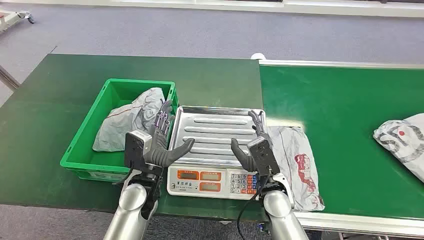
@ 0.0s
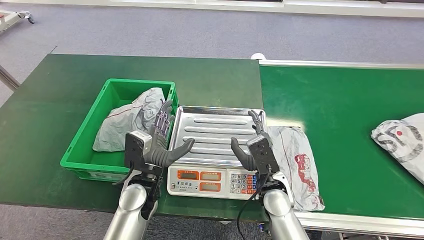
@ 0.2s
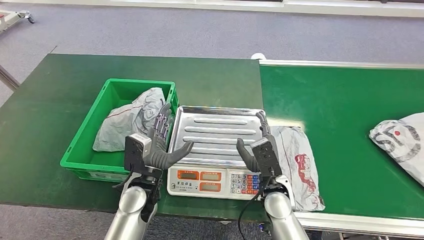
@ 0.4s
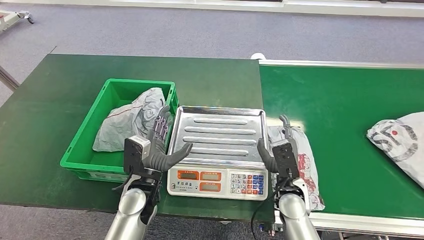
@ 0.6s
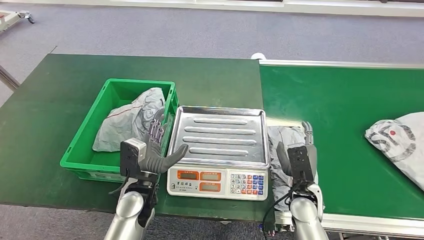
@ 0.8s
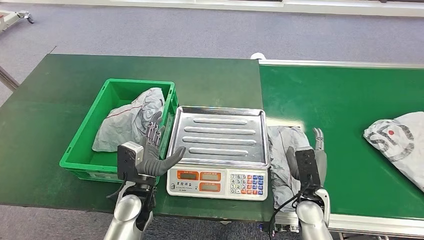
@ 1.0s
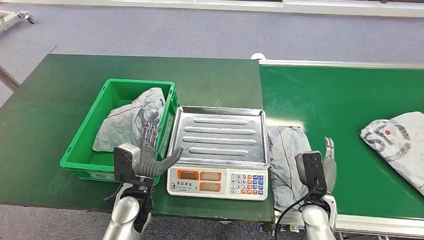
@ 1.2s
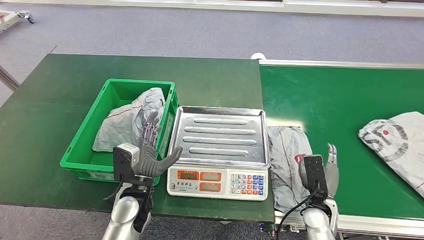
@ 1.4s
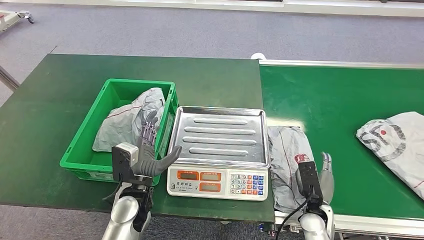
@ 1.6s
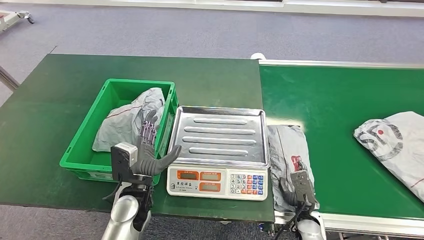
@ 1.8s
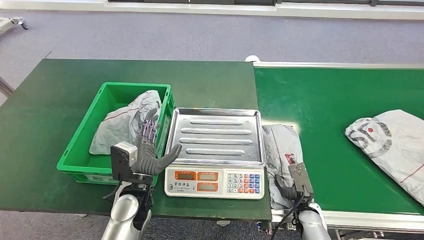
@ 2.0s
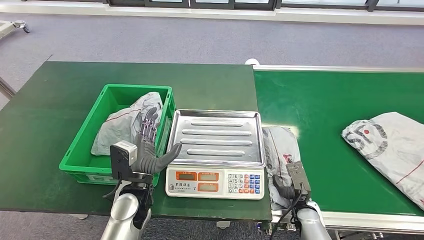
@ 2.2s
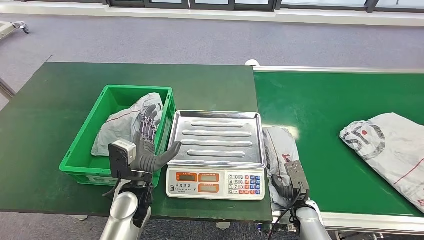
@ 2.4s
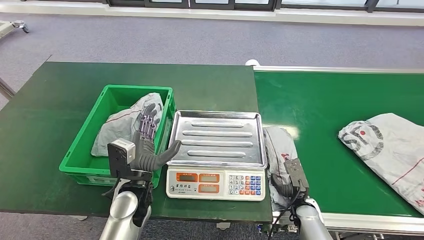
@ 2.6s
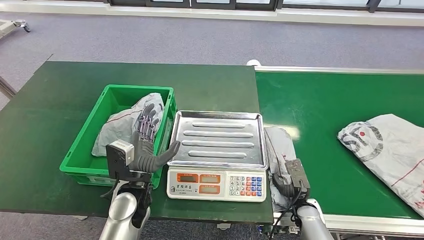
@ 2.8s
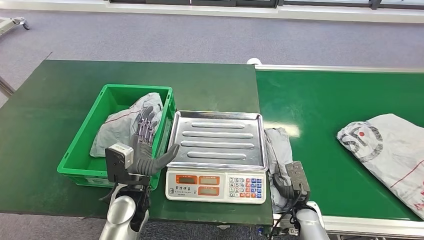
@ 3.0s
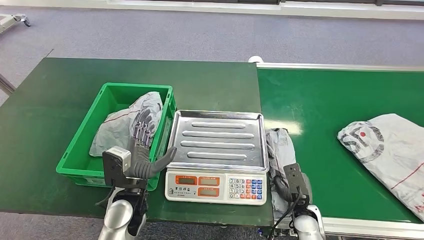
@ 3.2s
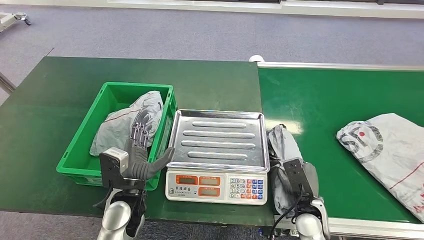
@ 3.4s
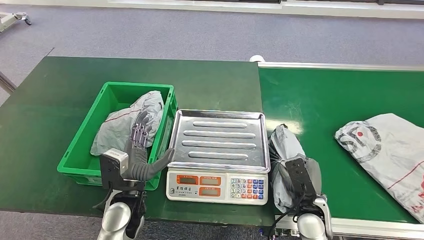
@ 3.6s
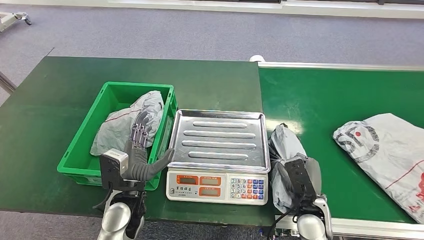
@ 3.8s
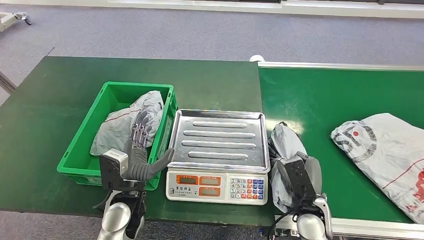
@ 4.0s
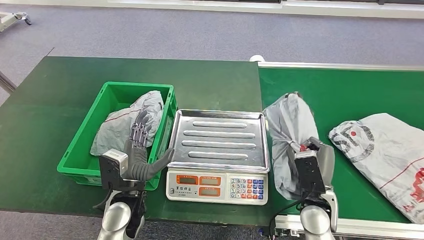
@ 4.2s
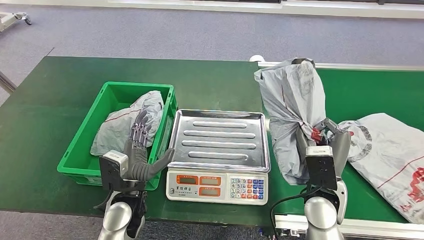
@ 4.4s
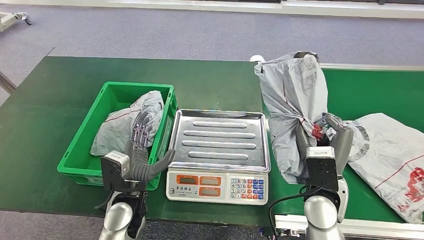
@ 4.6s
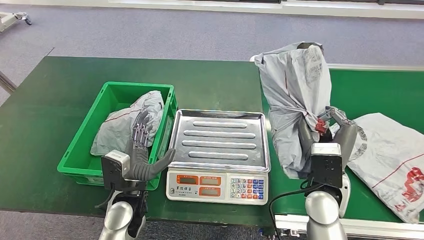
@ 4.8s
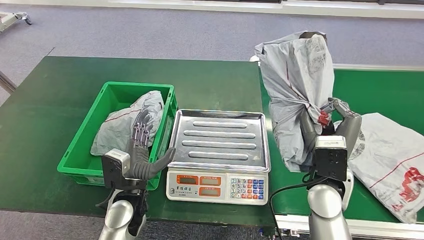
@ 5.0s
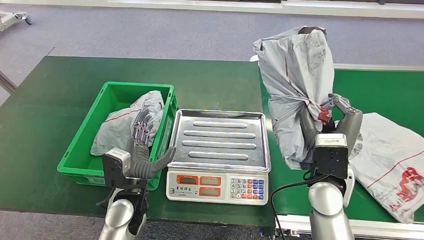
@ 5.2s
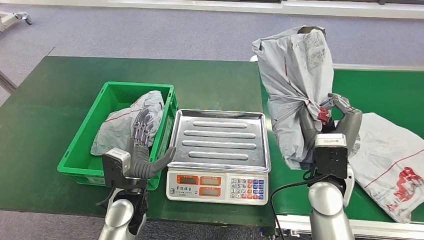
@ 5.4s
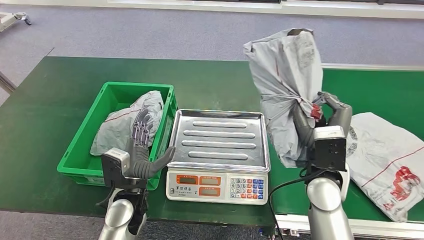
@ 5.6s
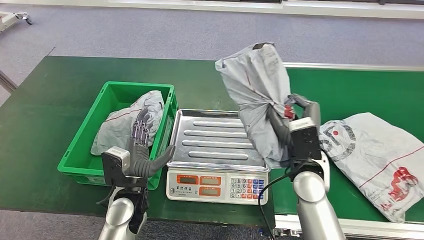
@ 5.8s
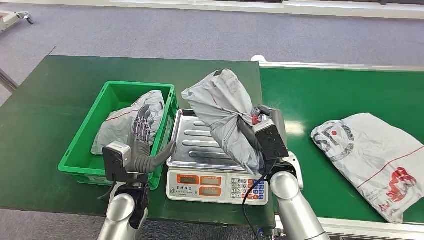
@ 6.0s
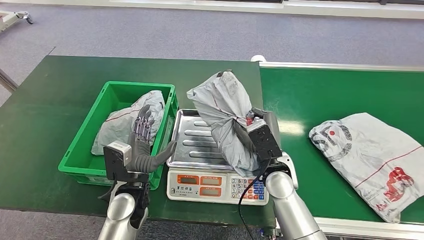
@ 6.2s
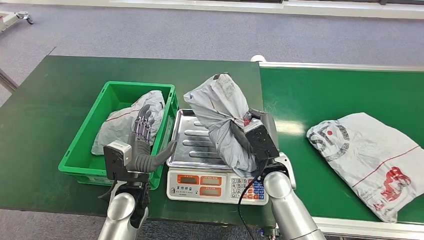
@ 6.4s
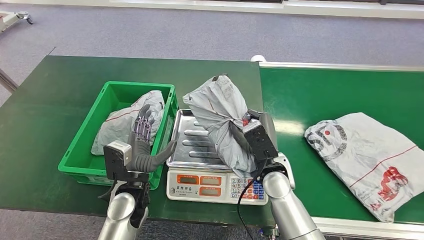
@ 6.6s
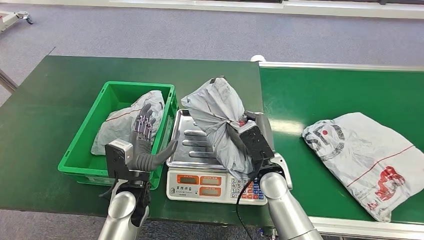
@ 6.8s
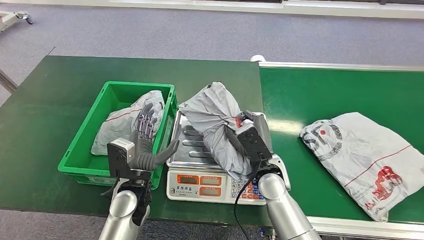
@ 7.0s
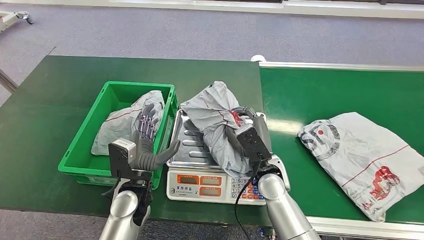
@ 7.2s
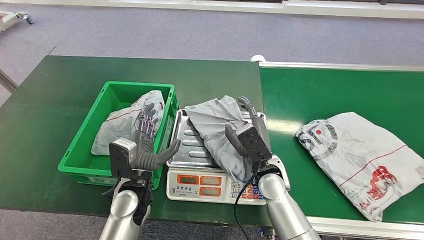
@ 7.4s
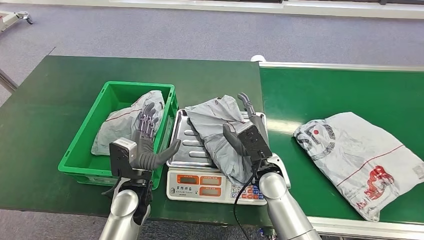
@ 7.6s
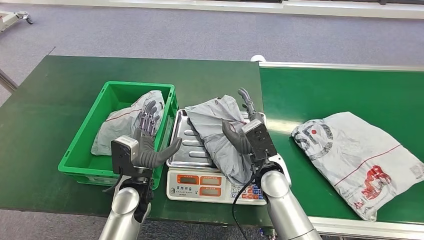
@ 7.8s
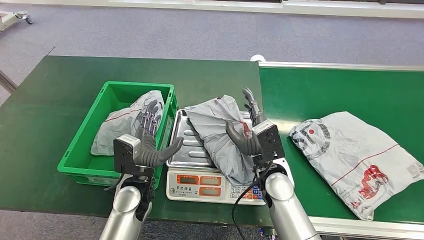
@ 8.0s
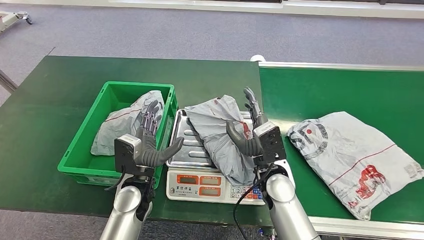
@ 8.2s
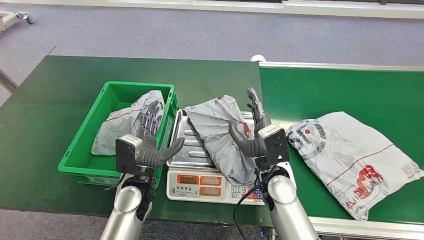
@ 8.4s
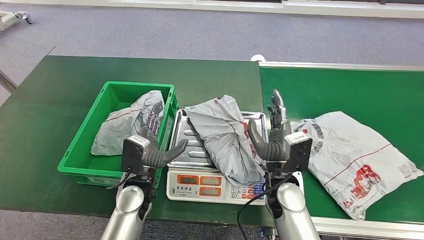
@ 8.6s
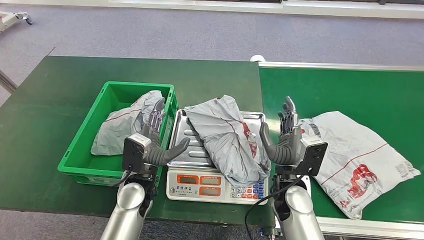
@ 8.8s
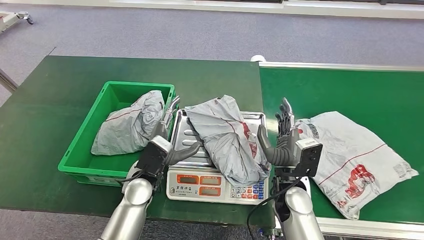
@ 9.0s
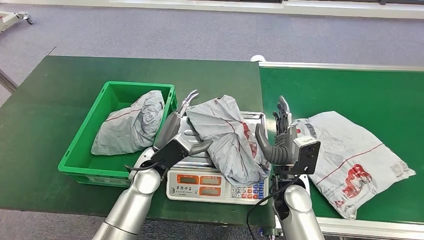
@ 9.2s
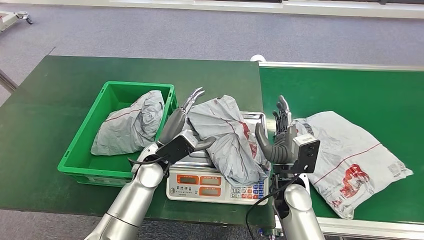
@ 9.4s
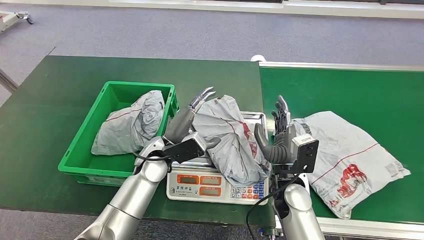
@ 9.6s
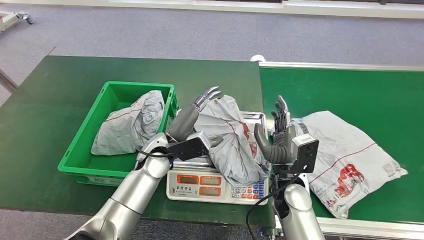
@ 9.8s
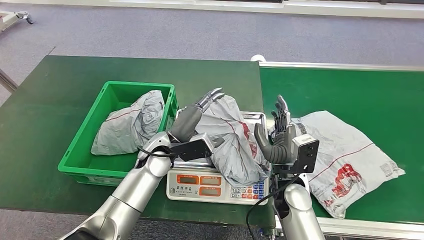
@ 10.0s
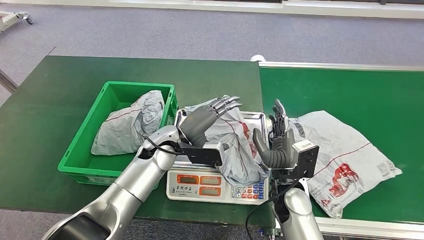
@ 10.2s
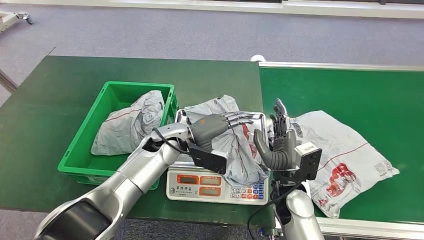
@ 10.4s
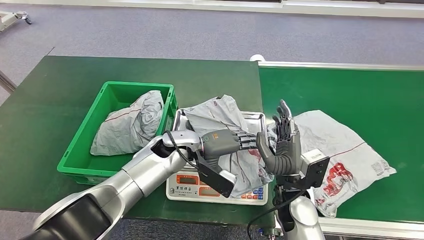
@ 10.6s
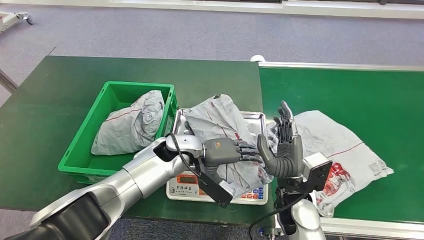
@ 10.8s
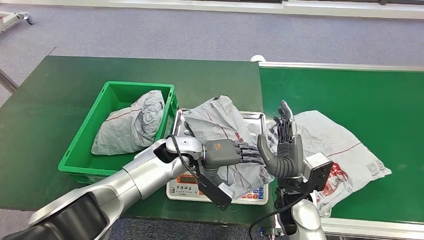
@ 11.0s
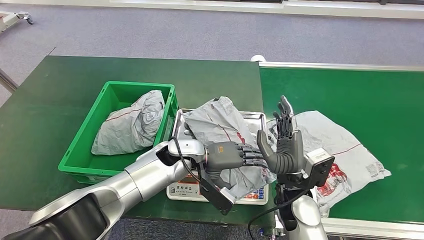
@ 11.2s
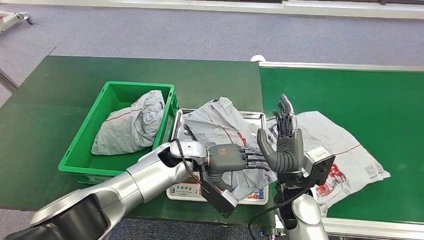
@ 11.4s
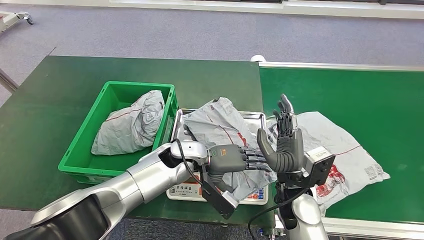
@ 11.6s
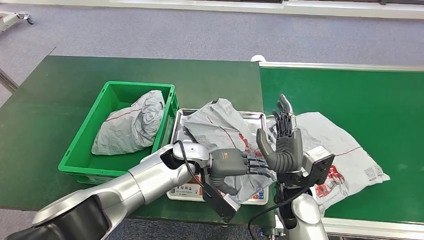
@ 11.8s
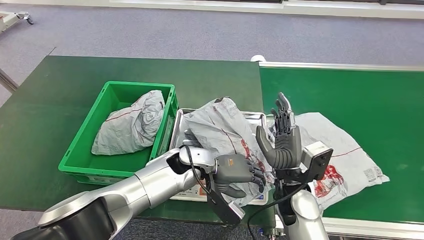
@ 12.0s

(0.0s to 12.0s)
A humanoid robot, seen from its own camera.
Step, 0.0s - 4.4s: Pick up the package from the conveyor belt.
Step, 4.6s - 8.8s: Place the package onto the inbound machine.
6.0s - 7.6s: There are only small adjustments of the hands.
7.6s - 9.0s: The right hand ends up approximately 5 cm from where it was.
9.0s - 10.4s: The left hand moves forward, about 10 cm.
10.4s - 12.0s: The left hand shifts by about 5 cm.

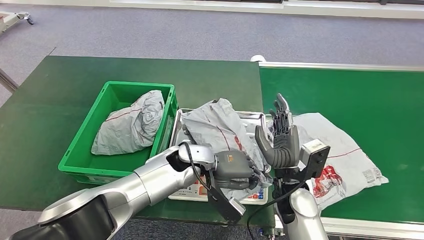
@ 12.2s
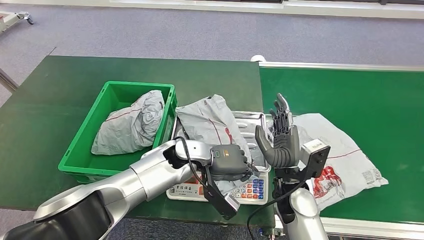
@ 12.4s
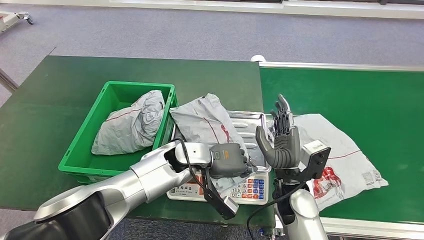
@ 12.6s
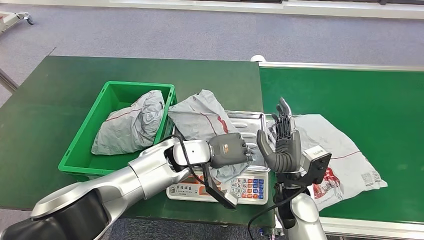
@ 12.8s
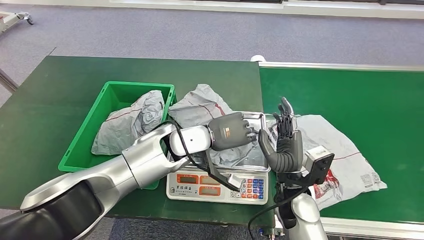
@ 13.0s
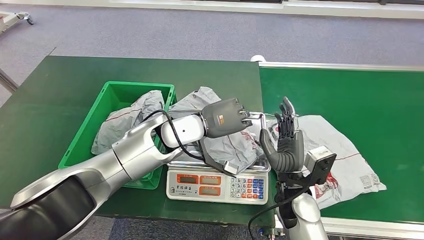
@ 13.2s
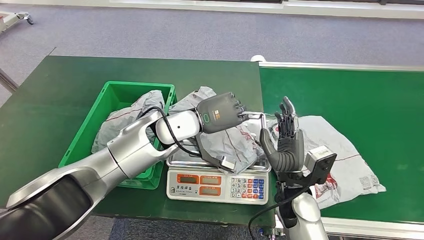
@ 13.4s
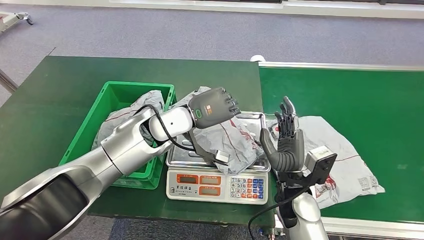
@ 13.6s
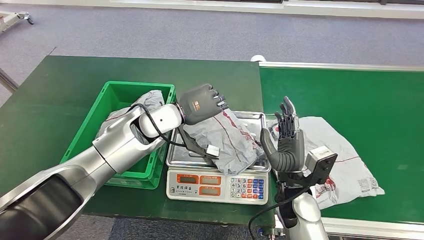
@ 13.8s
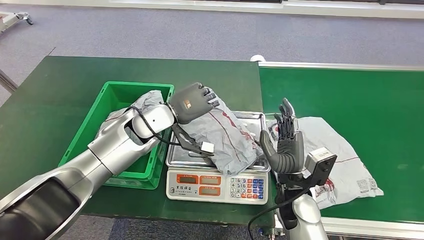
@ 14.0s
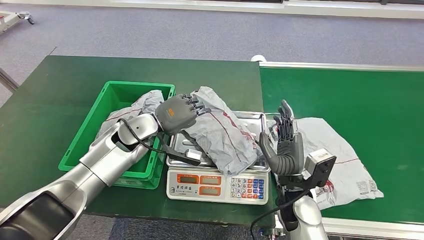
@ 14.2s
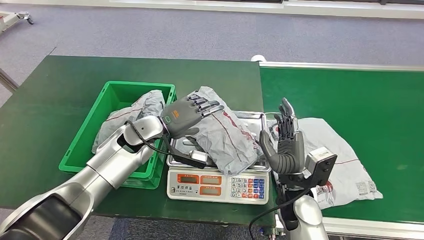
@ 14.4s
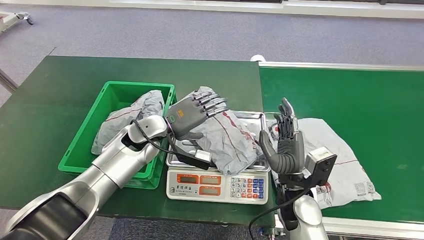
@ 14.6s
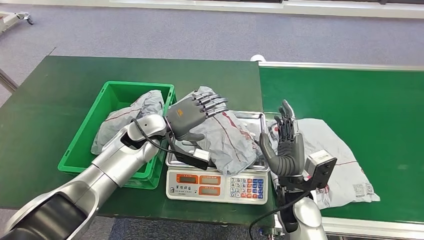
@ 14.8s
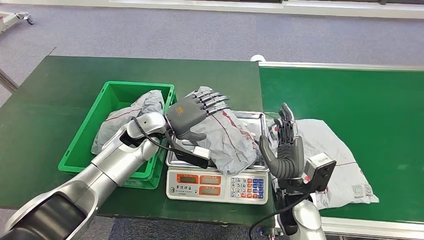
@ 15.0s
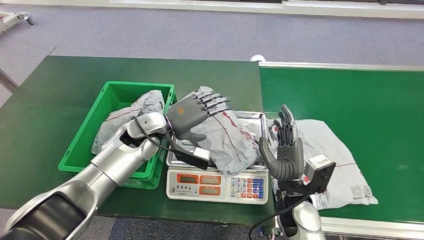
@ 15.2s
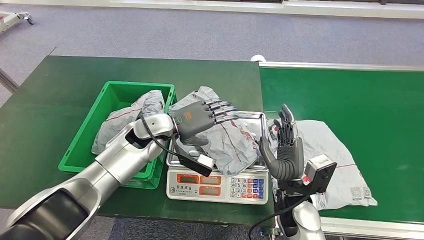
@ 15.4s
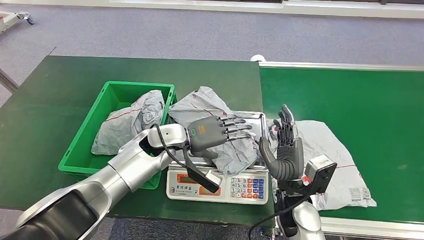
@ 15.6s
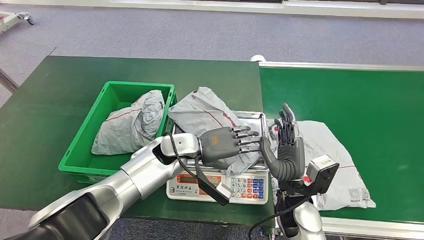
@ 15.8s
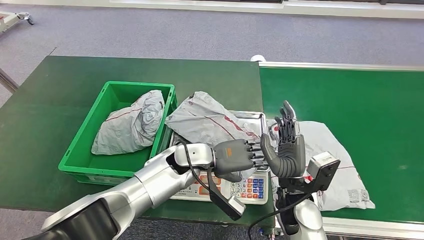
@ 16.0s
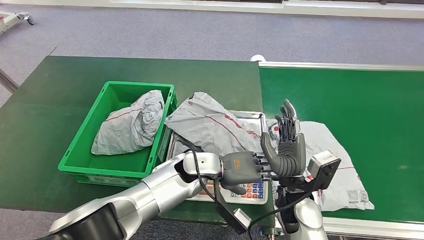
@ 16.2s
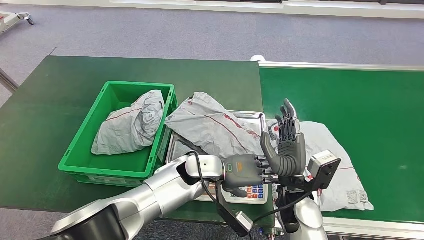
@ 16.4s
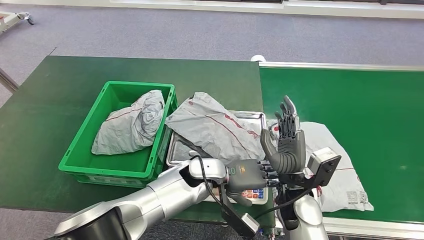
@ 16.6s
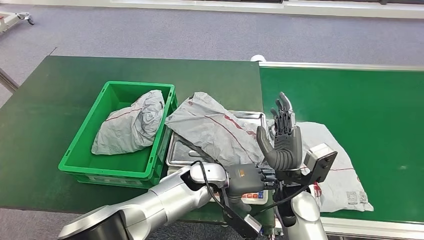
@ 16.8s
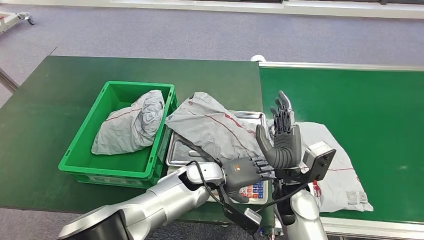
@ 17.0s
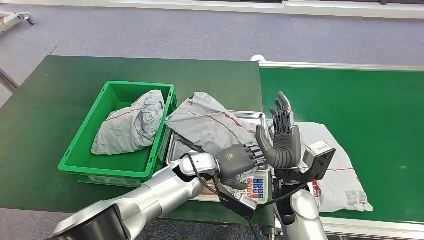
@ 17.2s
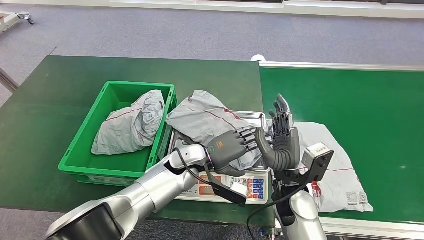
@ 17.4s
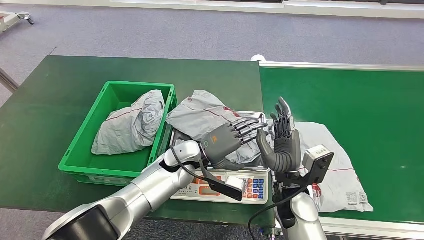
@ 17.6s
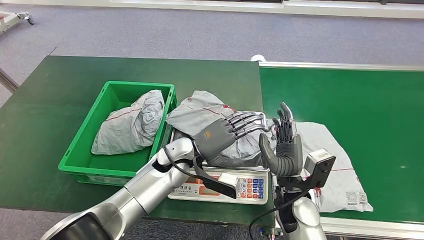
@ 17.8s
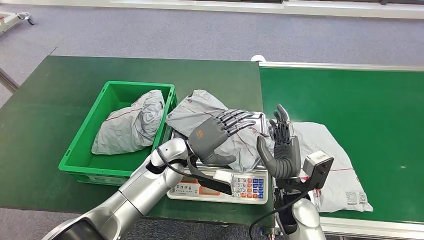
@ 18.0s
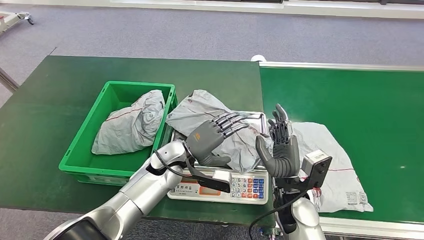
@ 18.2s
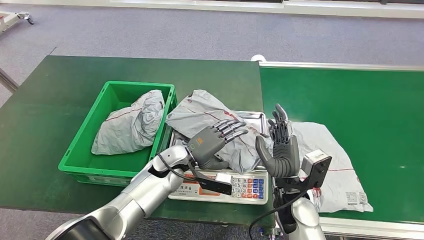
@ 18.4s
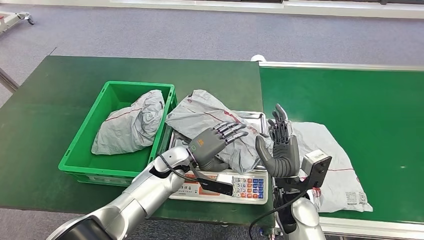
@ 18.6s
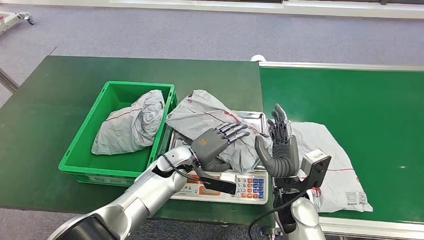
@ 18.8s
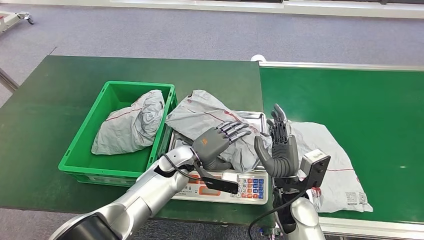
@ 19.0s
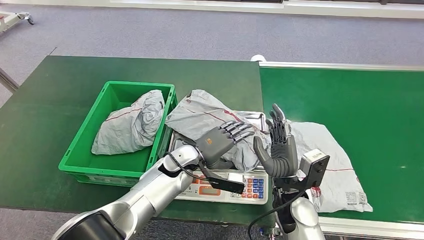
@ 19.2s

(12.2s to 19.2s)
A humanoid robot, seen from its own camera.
13.6s - 15.0s: The left hand shifts about 10 cm downward and to the left.
17.8s - 19.2s: The hands stay close to where they were, moving slightly.
